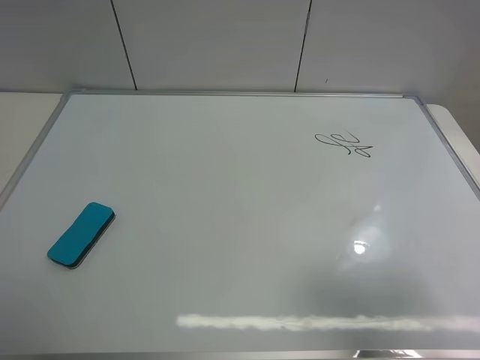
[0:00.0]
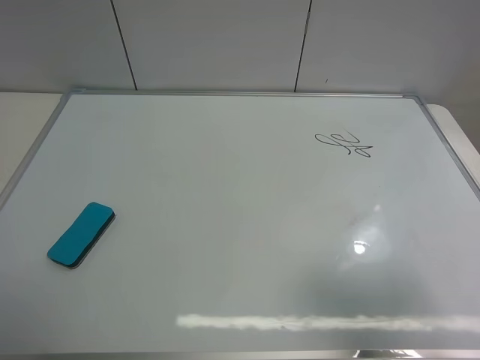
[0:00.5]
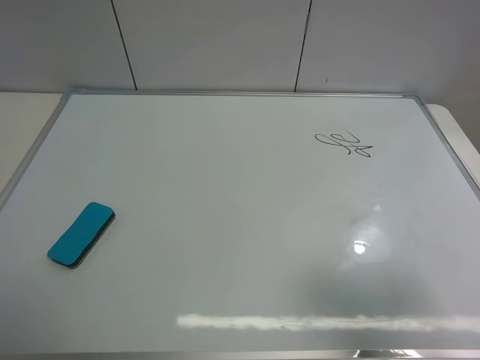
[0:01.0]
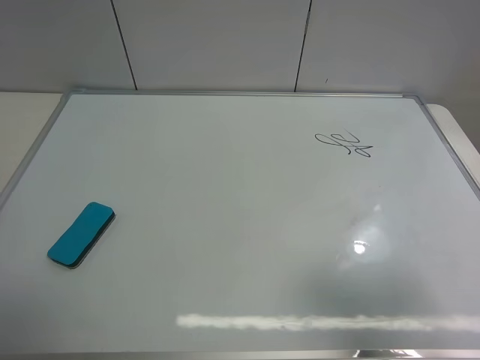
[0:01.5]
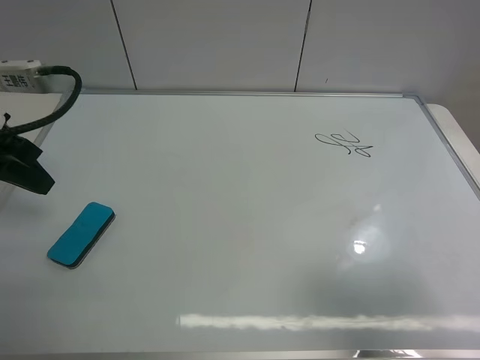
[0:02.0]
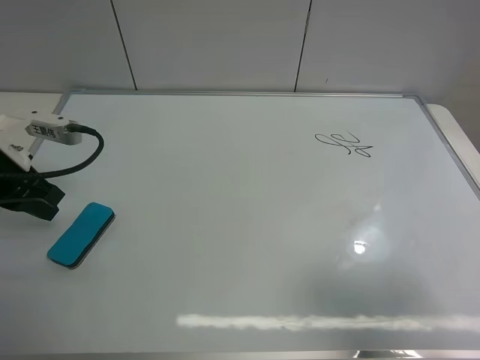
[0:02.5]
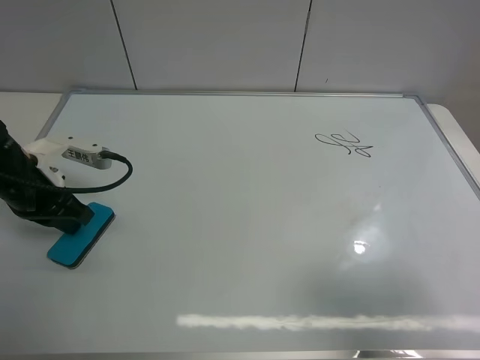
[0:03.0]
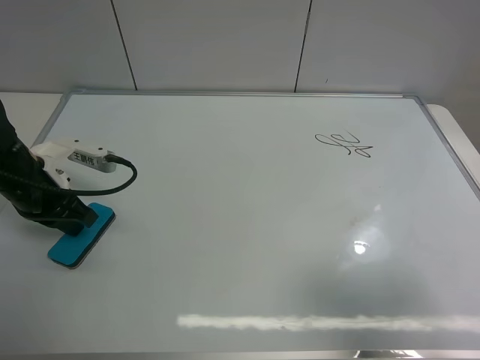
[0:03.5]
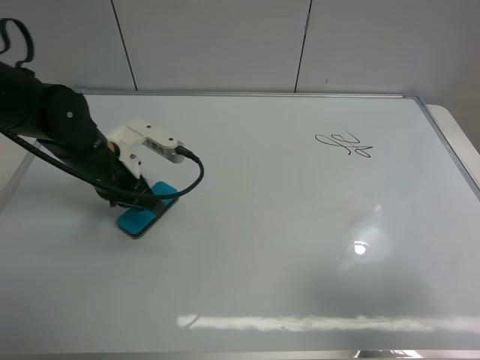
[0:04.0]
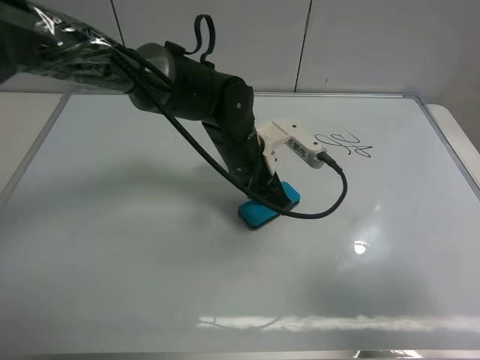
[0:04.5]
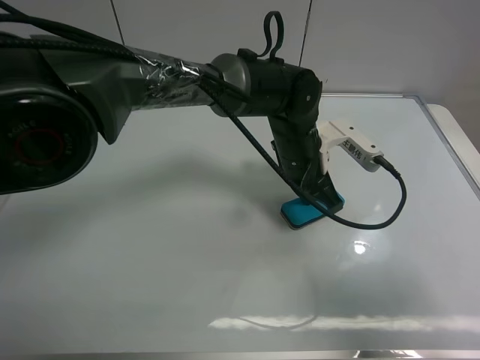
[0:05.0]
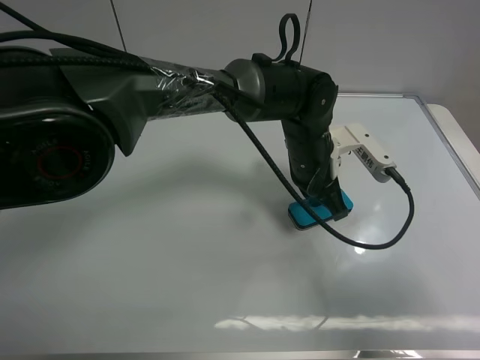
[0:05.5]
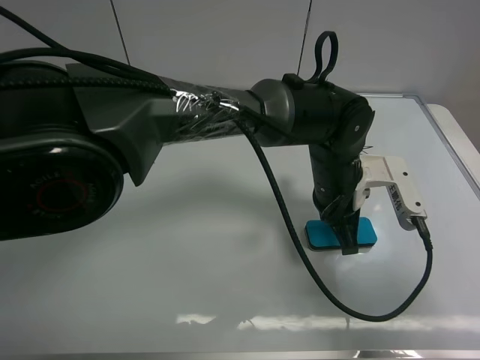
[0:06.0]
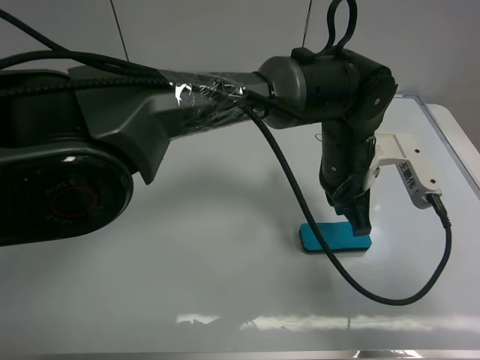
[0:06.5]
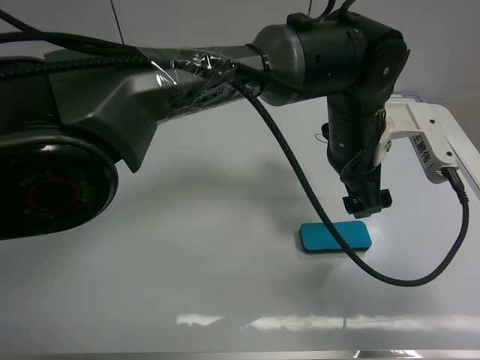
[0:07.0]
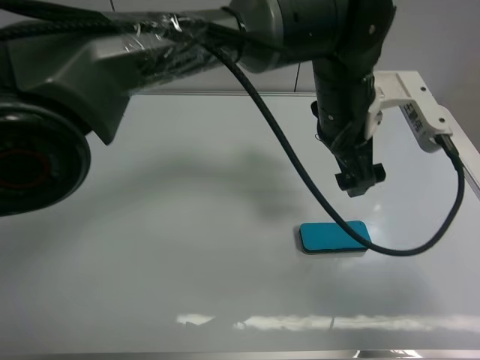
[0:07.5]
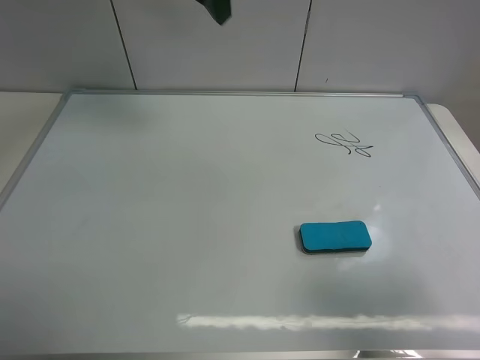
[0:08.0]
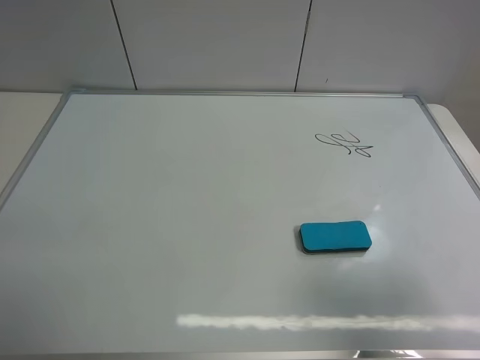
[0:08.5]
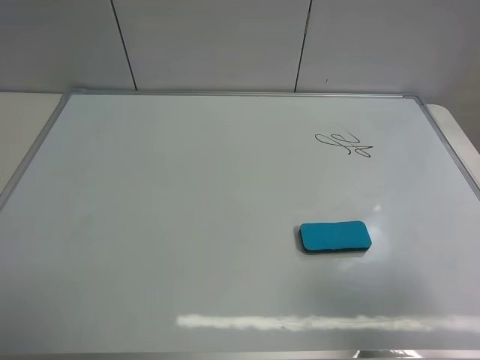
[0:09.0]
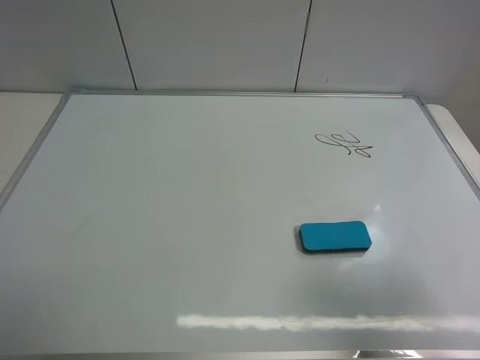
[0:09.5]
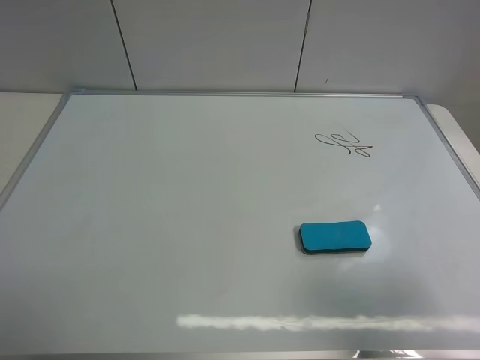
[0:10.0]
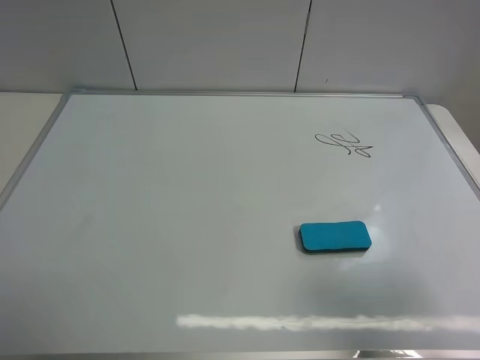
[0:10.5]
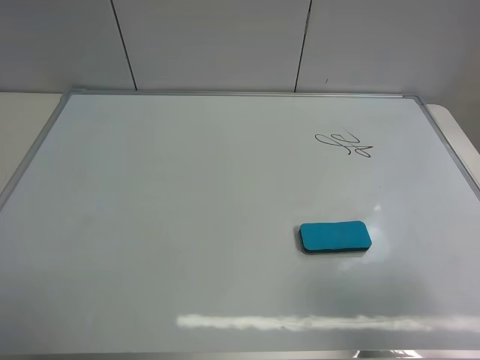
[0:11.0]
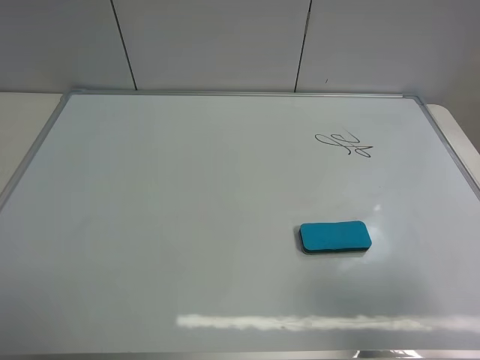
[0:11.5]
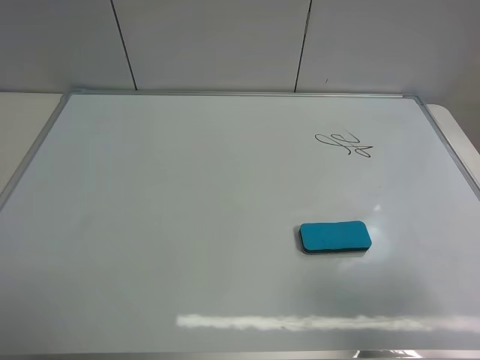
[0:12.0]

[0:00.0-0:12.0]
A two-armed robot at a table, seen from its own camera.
Task of the whole recording: use the left gripper to place the eraser in the right, use the right gripper to pick up the eraser, wipe the notes on the whiteboard clean, and then put it down.
Step, 0:00.0 to 0:06.0: Move the board eraser to the right of the whiteboard with left gripper.
0:00.0 to 0:02.0: The left gripper travels forward by roughly 25 cm, and closes up.
0:02.0 to 0:04.0: The left gripper travels downward and to the right by approximately 15 cm.
0:04.0 to 0:06.0: The left gripper is displaced to the right by about 30 cm.
0:06.0 to 0:08.0: The left gripper goes approximately 40 cm upward, to the left and forward, and opens up.
0:08.0 to 0:10.0: The left gripper shifts approximately 50 cm backward and to the left.
0:10.0 to 0:12.0: The two grippers keep their place.

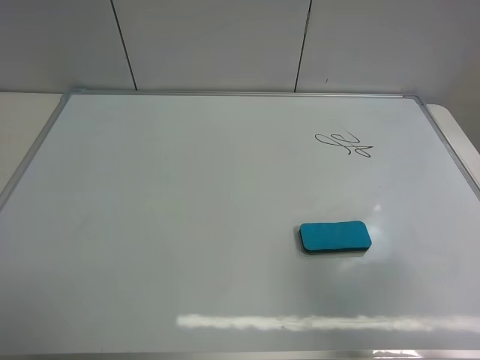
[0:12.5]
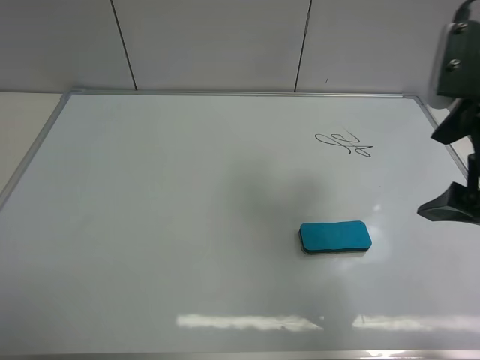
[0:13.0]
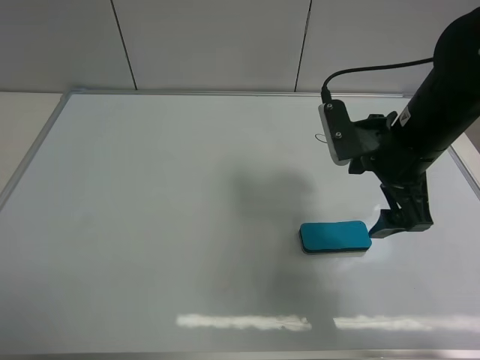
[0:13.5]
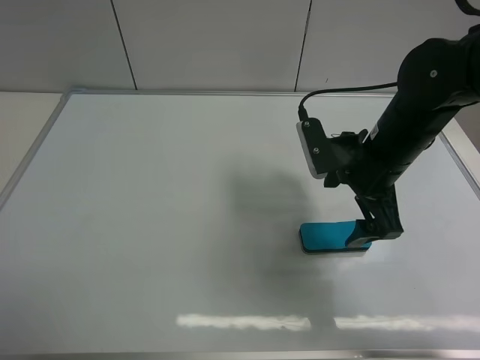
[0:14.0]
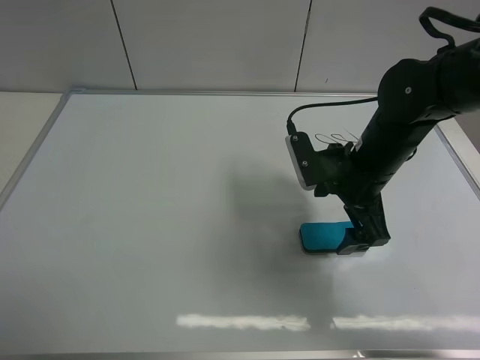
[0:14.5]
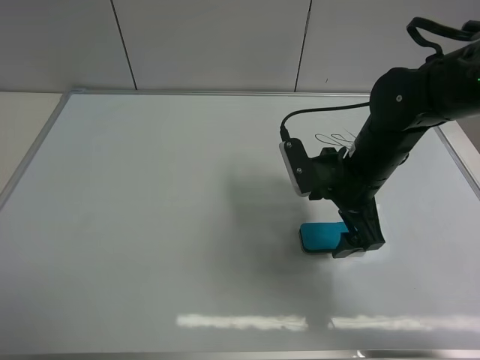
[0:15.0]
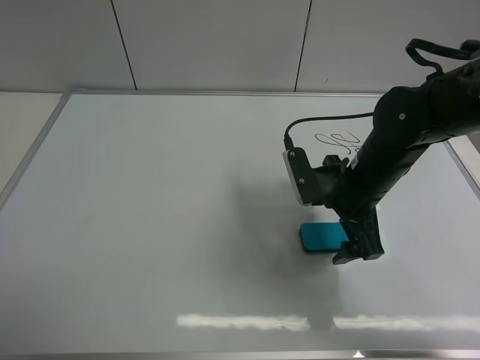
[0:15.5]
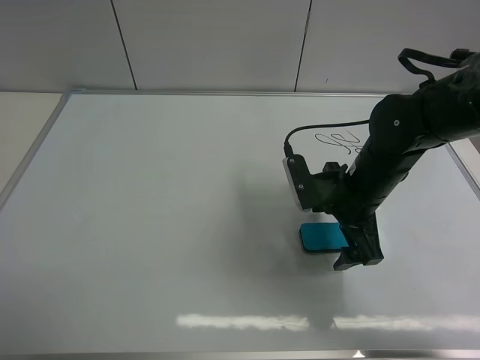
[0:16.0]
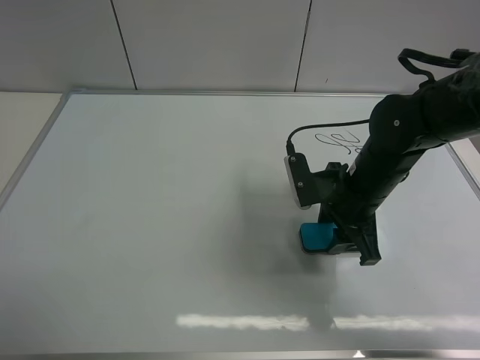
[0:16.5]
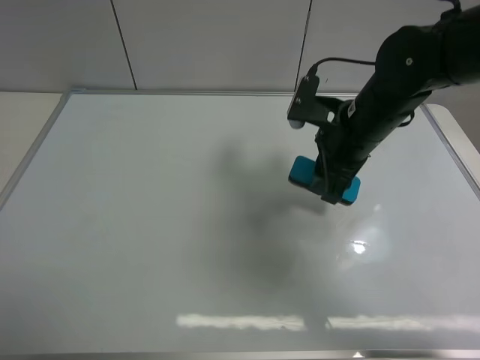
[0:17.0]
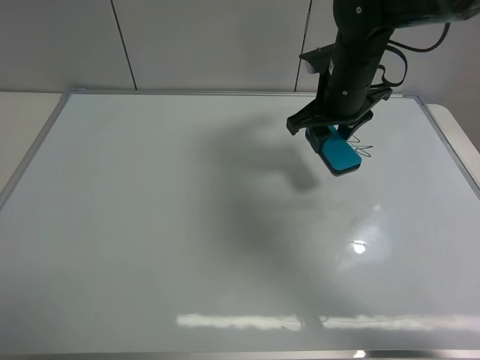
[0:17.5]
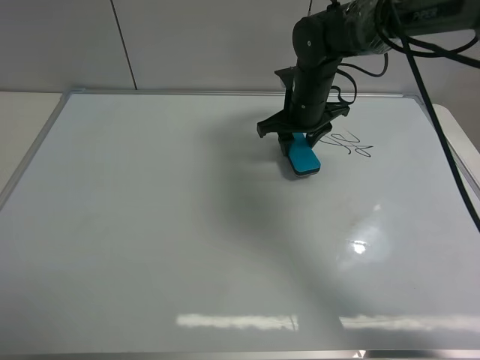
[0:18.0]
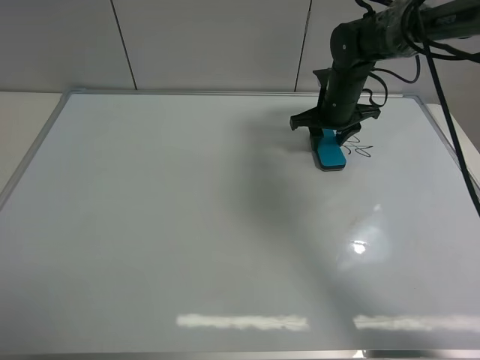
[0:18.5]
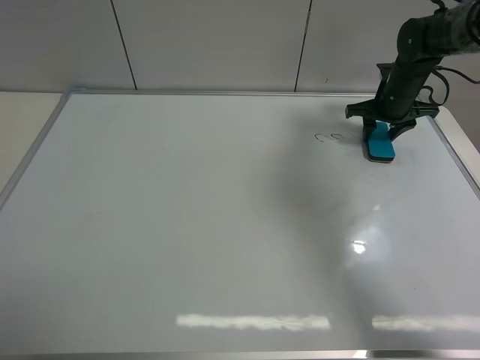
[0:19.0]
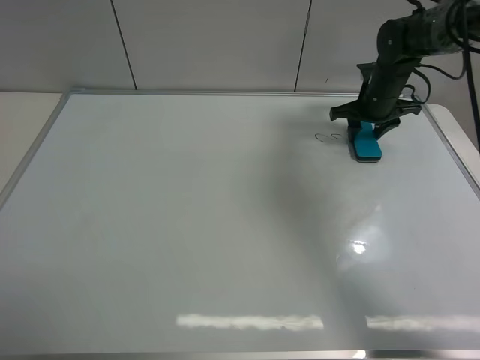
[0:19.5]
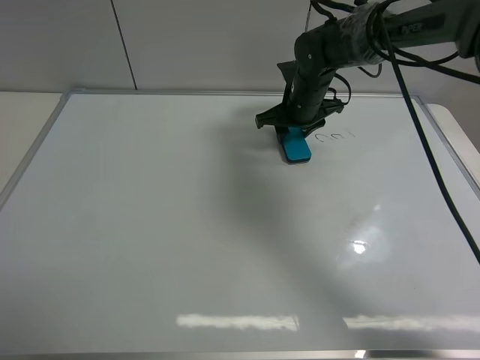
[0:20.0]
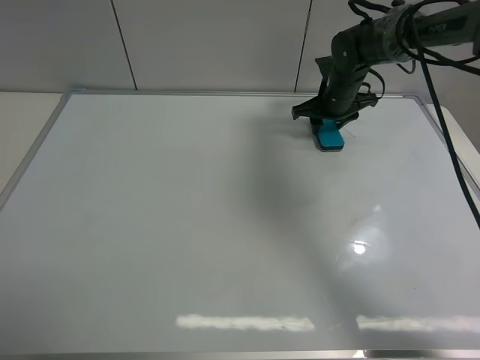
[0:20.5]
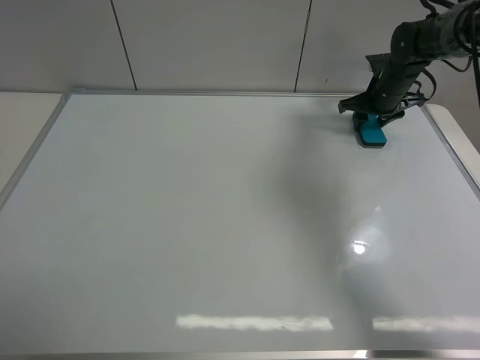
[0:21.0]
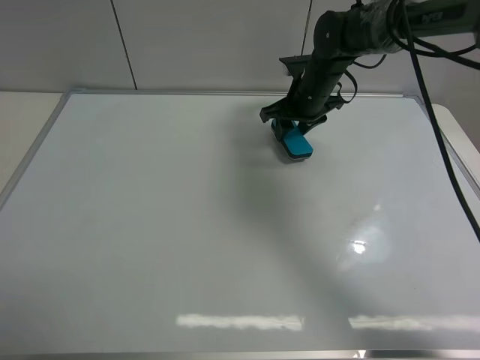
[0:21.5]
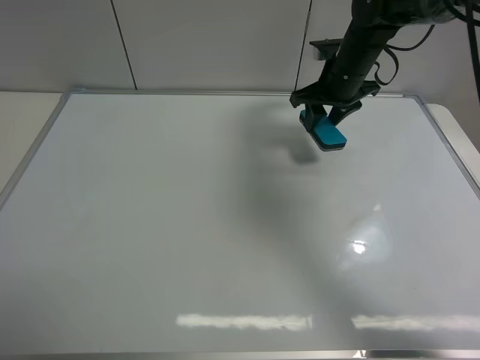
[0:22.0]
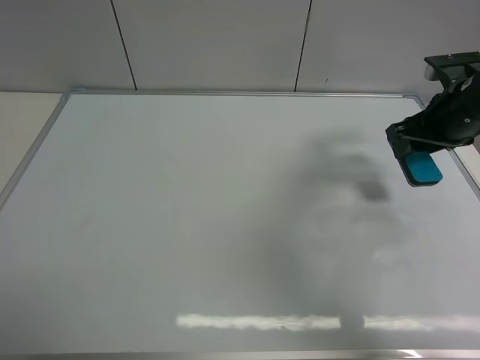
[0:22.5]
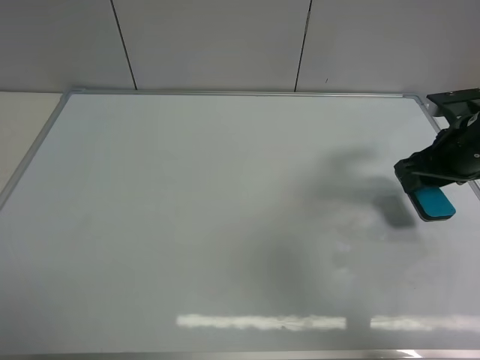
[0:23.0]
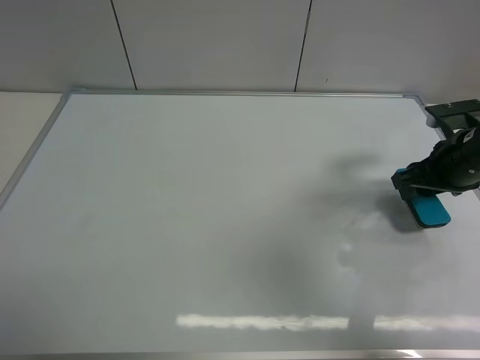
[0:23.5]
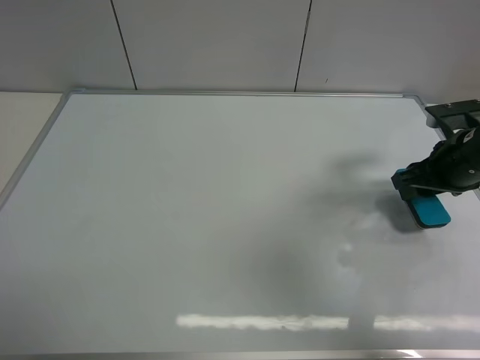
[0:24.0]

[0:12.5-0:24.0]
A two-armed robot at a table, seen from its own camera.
Task of the whole recording: use the left gripper to place the eraser in the right, use the right gripper to pick up the eraser, wipe the notes on the whiteboard clean, and then put it down.
Step, 0:12.5 to 0:16.5: Pick up the board eraser with right gripper.
Step, 0:17.0 to 0:21.0: Wipe off the writing on the board with right gripper.
0:12.5 to 0:14.5: The right gripper goes about 30 cm forward, downward and to the left.
0:14.5 to 0:16.5: The right gripper closes.
0:16.5 to 0:18.5: The right gripper travels forward by roughly 20 cm.
0:18.5 to 0:20.0: The right gripper goes roughly 5 cm to the left.
0:20.0 to 0:22.0: The right gripper swings left and right, some 15 cm each way, with 2 reversals.
0:22.0 to 0:24.0: The right gripper is displaced backward and to the right by roughly 20 cm.

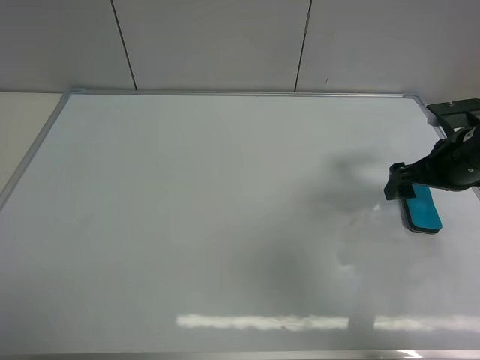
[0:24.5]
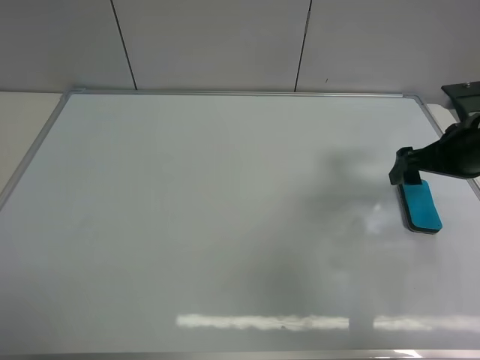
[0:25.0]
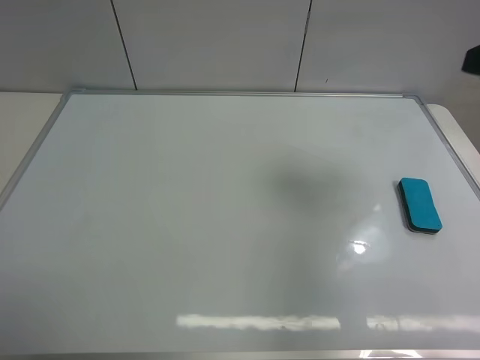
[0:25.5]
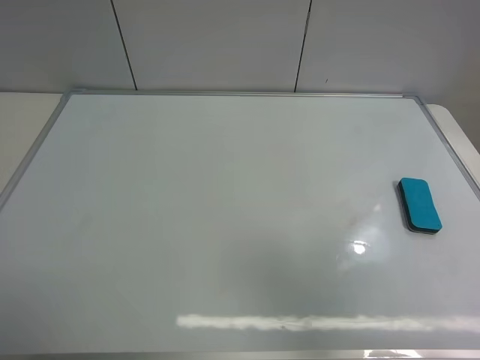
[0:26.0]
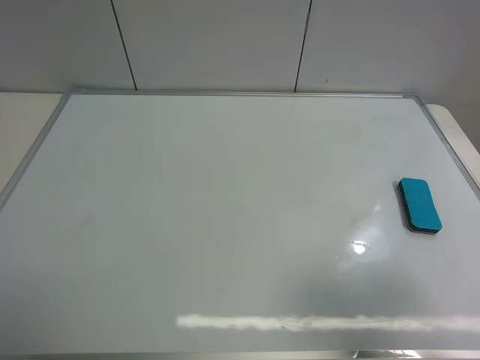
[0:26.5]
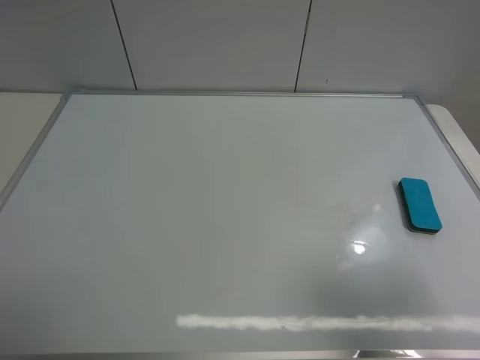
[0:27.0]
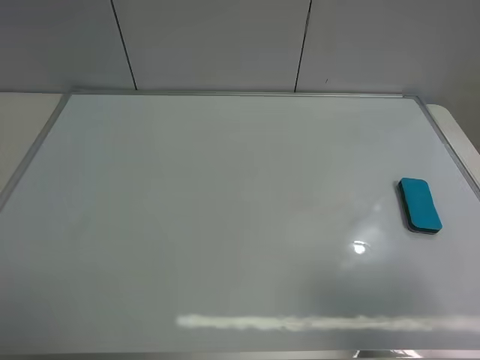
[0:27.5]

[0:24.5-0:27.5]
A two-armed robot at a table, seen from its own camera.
Task of the whole recording: use the left gripper to place the eraser in the right, use the right gripper to pick up the eraser, wipe the notes on the whiteboard clean, and then put it down.
0:24.5 to 0:26.0: The right gripper goes roughly 35 cm backward and upward.
0:26.0 to 0:27.5: The right gripper shifts about 5 cm downward.
